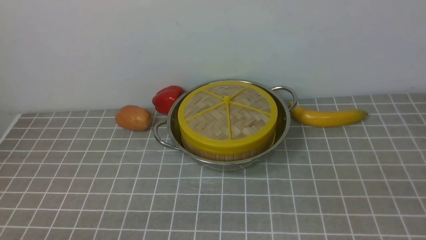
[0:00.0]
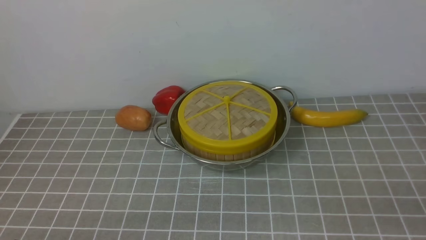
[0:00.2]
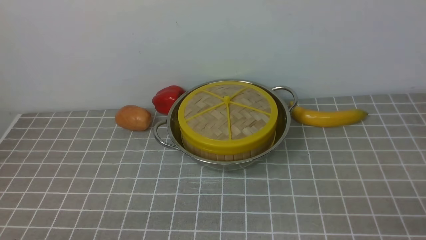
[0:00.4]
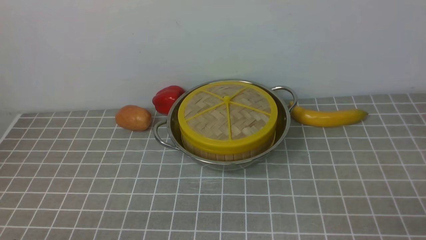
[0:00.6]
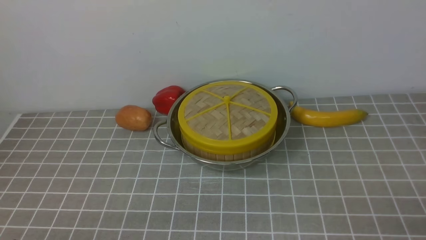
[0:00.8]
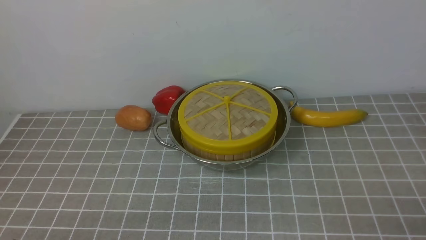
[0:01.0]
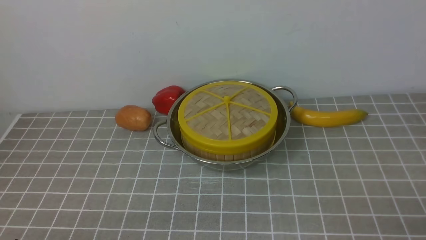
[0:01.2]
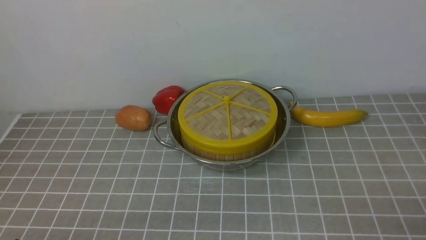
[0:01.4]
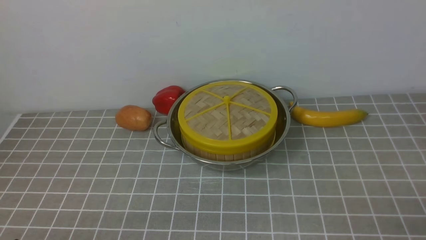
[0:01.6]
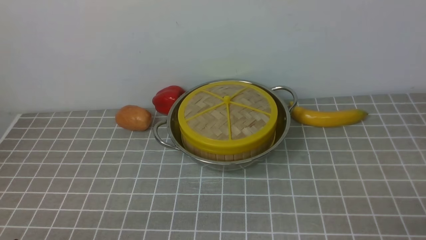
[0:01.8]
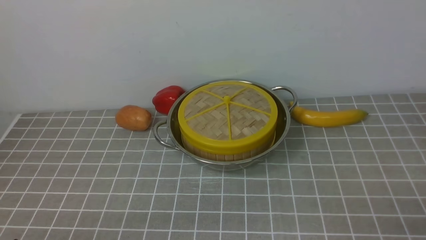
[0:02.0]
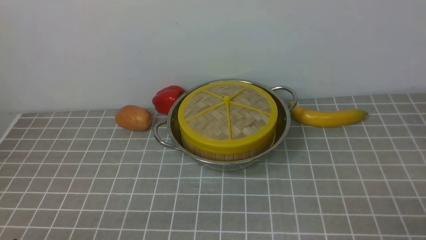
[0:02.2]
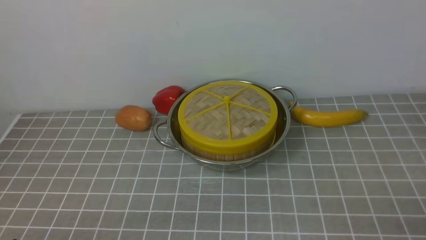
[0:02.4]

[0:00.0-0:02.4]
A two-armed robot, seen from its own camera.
Task of the whole recording: place the steamer in the pot on the grey tablecloth, and put the lid on the steamer.
0:01.2 to 0:02.4: Neither gripper changes place.
